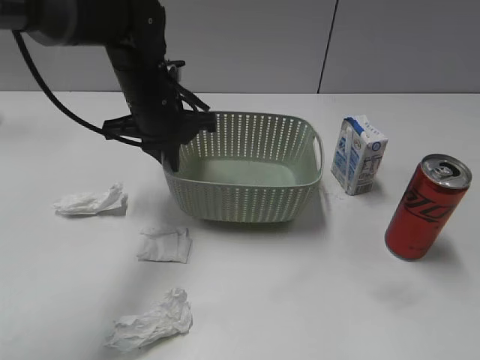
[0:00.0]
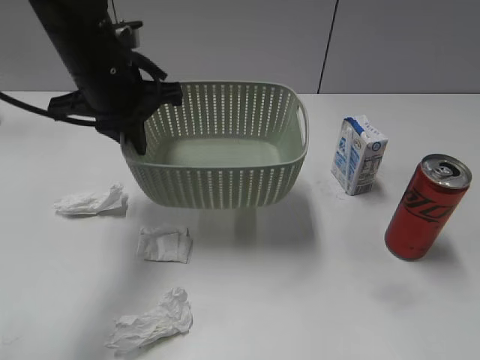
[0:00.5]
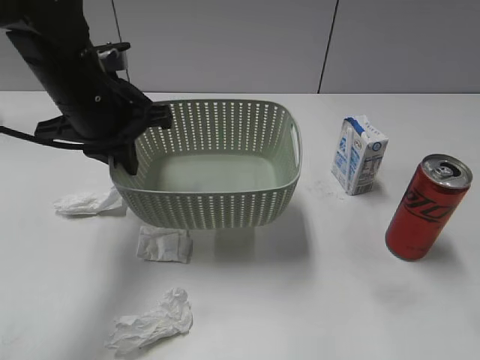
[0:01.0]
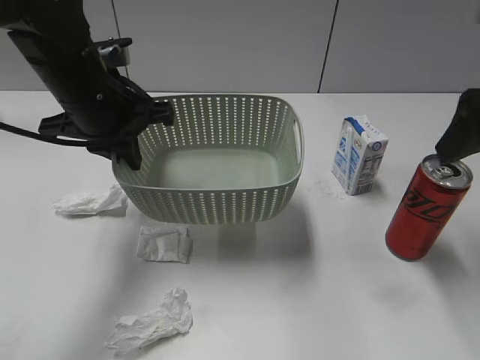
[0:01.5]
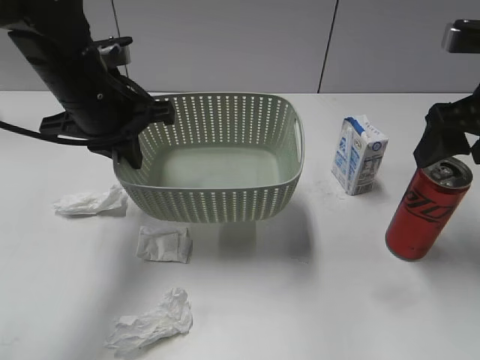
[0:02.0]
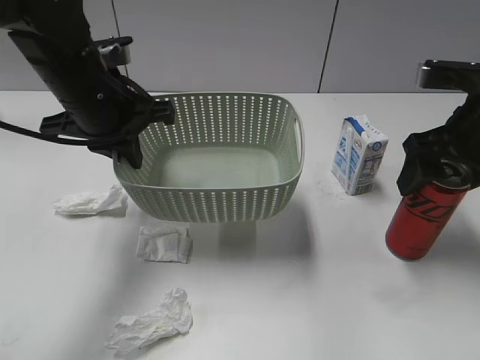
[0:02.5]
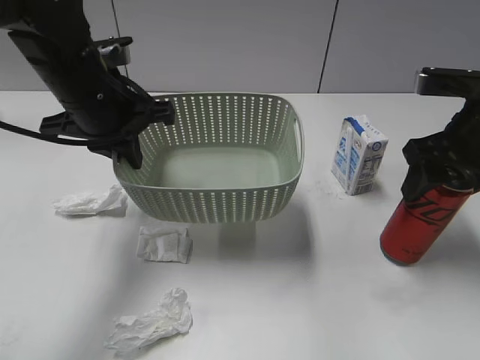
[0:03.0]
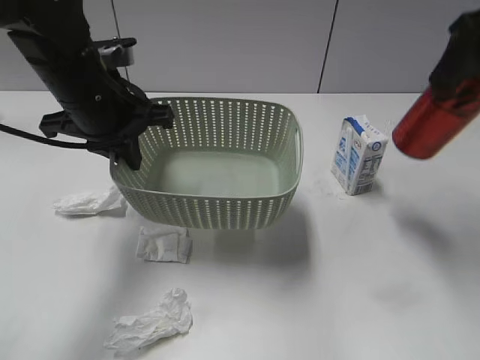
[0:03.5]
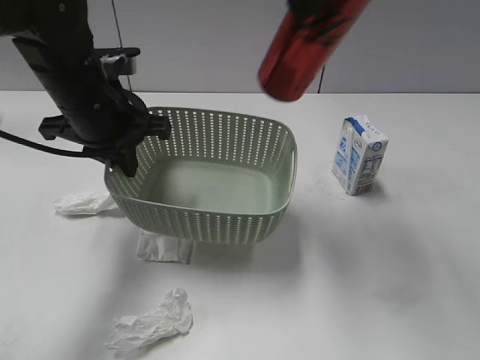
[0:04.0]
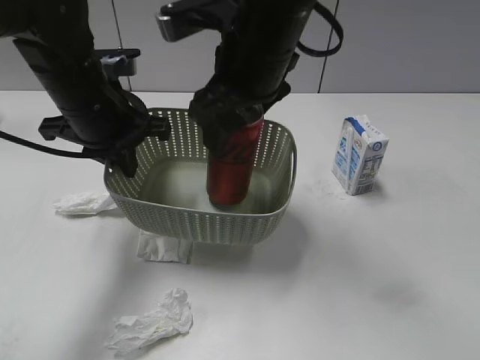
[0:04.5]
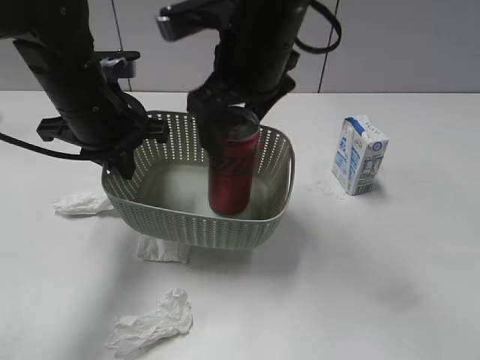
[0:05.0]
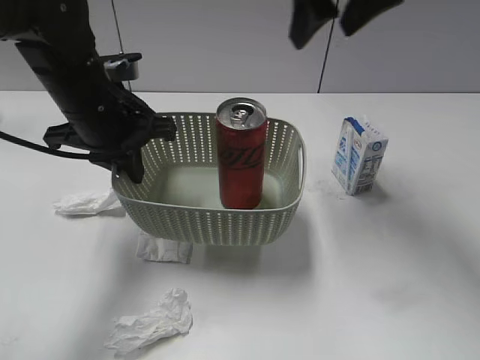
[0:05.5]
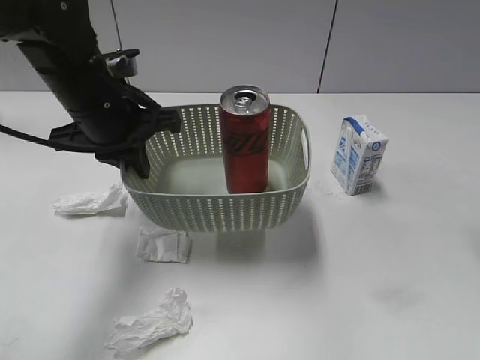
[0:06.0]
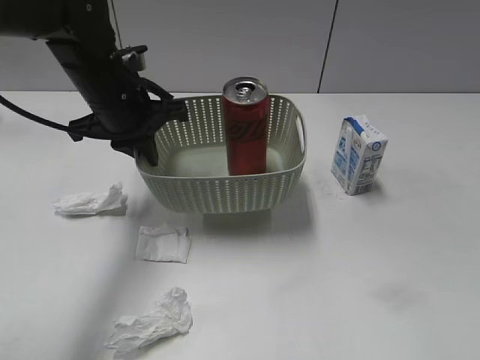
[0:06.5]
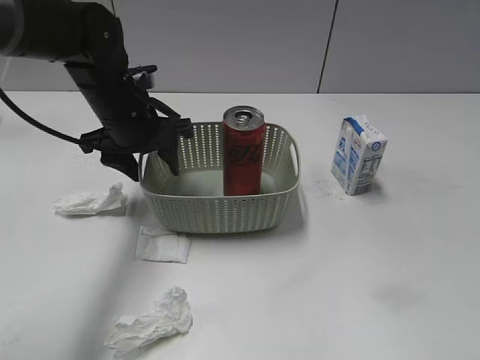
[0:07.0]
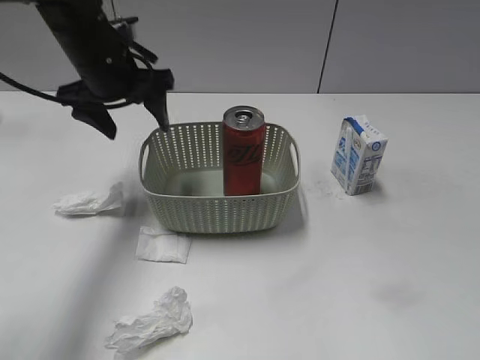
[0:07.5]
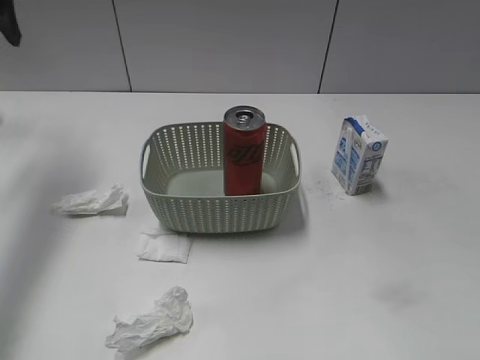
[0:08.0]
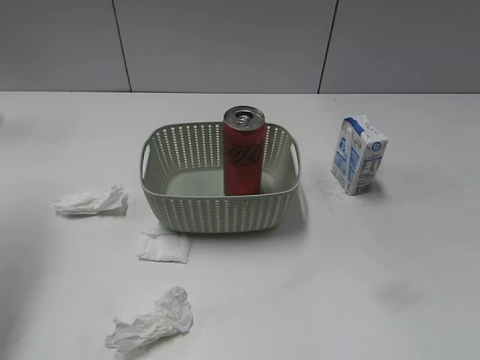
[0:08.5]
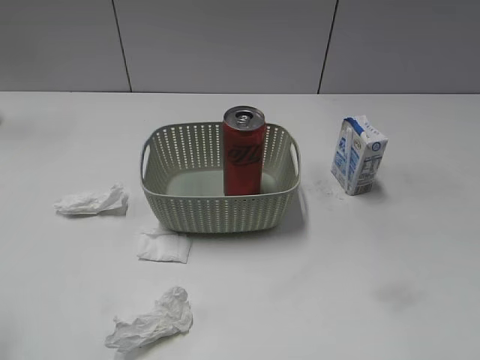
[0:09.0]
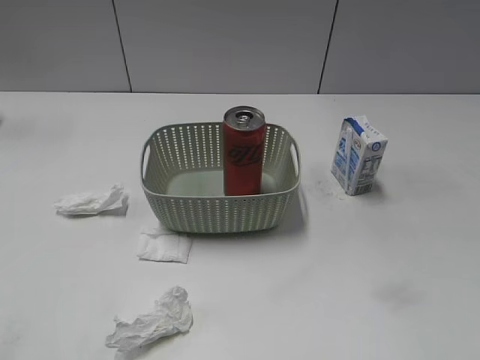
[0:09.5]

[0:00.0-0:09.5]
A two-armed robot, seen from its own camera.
Step, 0:00.0 to 0:01.0: Lift the basket with left gripper.
Step, 0:01.5 to 0:02.5: Grasp the cola can with right gripper.
Step, 0:03.0 to 0:05.0: Place the cola can in the basket with right gripper.
Step, 0:05.5 to 0:07.0: Place the basket on the table with left gripper.
0:00.0 to 0:02.0: The left gripper is displaced backward by about 5 cm. Meanwhile the right gripper is displaced forward by about 30 cm, and opens up.
0:02.0 to 0:04.0: The right gripper is displaced to the left and upward by some 20 cm, and closes up.
0:04.0 to 0:05.5: The right gripper heads forward and to the right, covering some 10 cm, and opens its fingers.
0:05.5 to 0:07.5: The right gripper shifts about 40 cm backward, while the left gripper travels forward by some 10 cm, and opens up.
0:07.5 to 0:09.5: The left gripper moves backward, roughly 40 cm.
